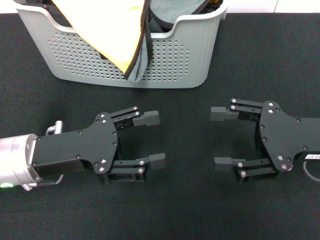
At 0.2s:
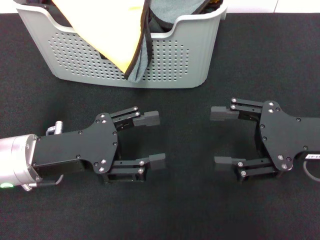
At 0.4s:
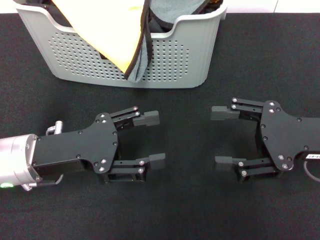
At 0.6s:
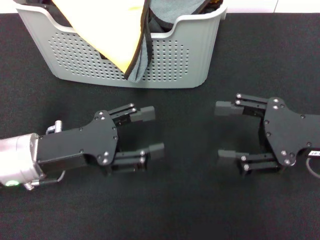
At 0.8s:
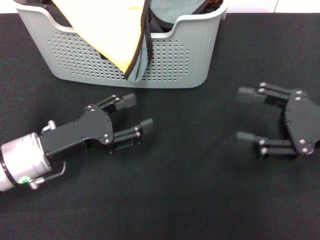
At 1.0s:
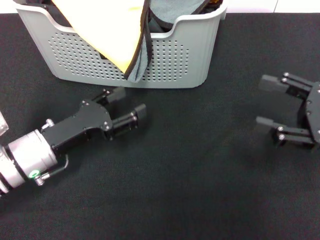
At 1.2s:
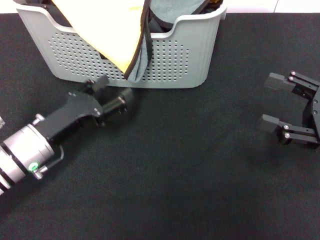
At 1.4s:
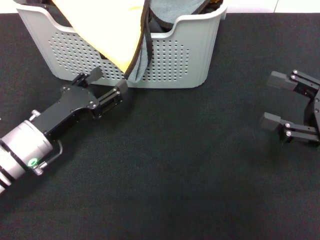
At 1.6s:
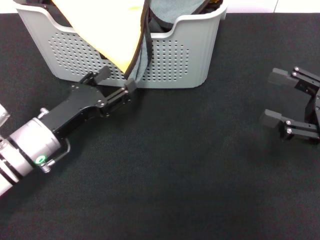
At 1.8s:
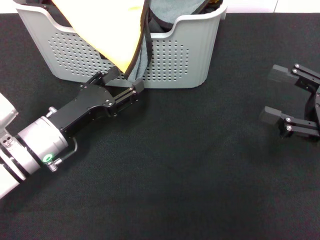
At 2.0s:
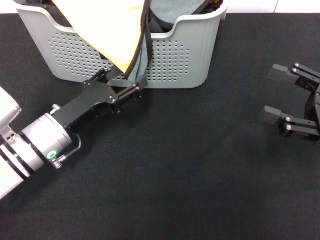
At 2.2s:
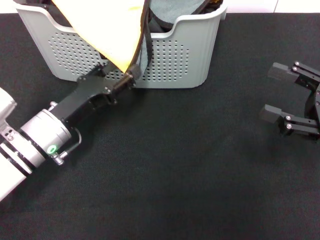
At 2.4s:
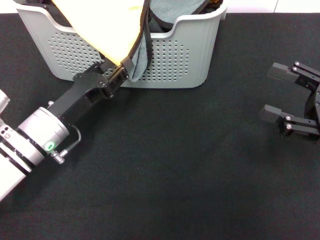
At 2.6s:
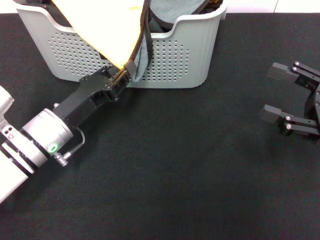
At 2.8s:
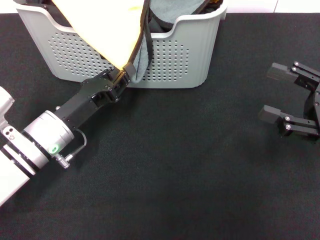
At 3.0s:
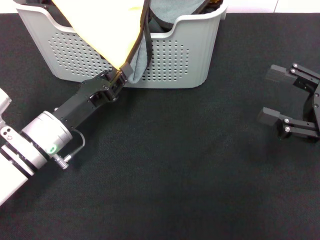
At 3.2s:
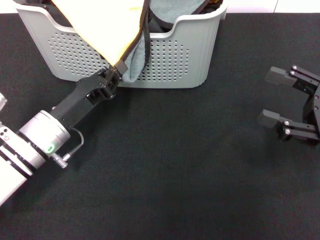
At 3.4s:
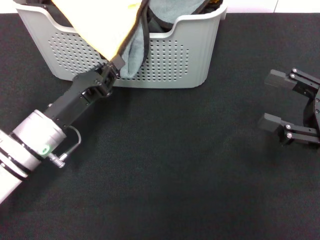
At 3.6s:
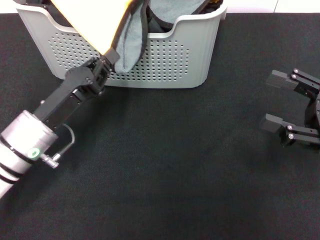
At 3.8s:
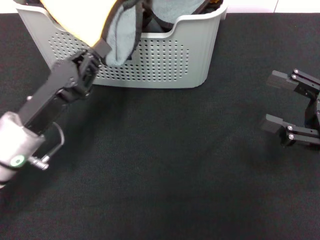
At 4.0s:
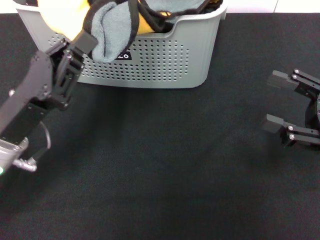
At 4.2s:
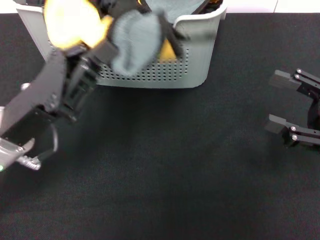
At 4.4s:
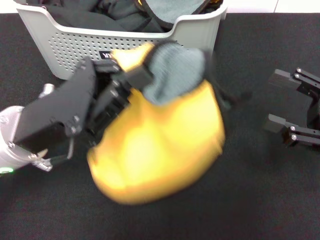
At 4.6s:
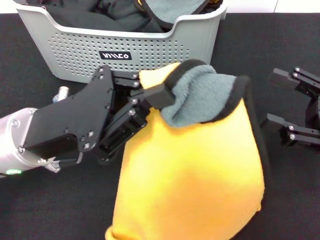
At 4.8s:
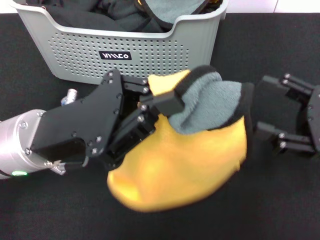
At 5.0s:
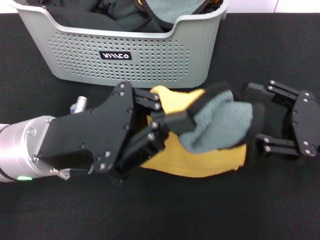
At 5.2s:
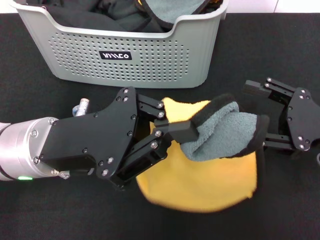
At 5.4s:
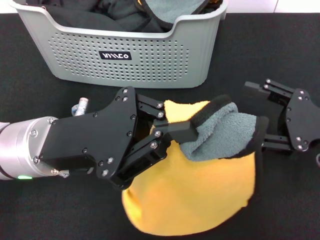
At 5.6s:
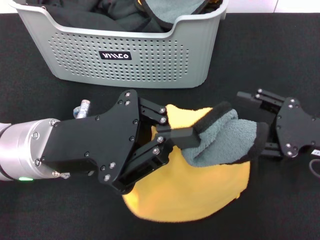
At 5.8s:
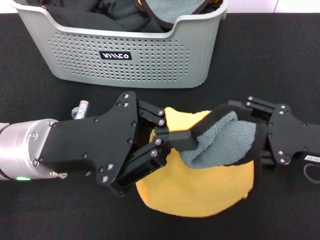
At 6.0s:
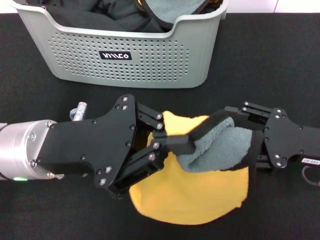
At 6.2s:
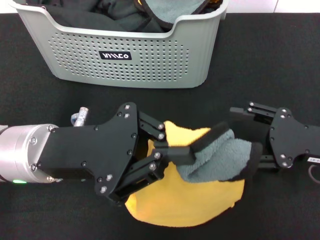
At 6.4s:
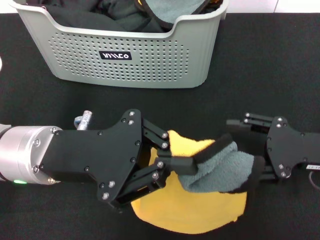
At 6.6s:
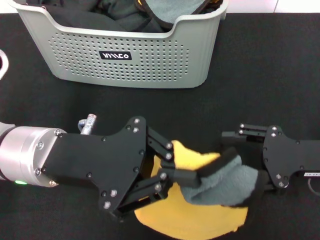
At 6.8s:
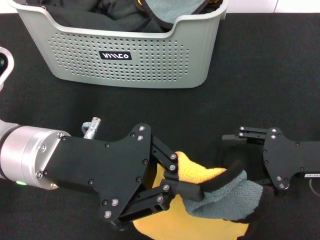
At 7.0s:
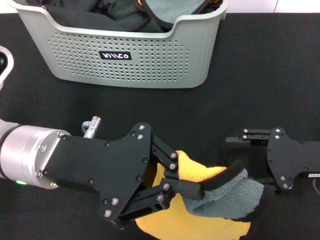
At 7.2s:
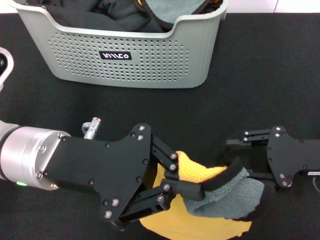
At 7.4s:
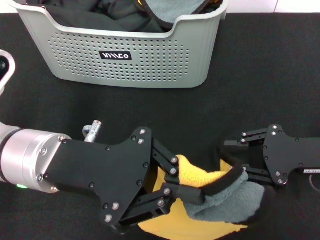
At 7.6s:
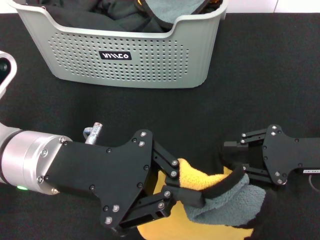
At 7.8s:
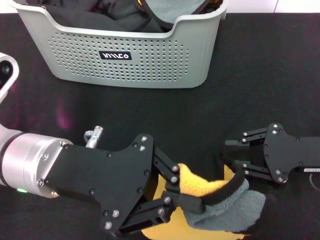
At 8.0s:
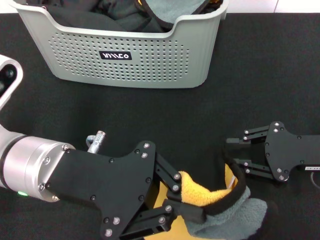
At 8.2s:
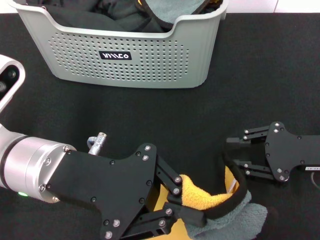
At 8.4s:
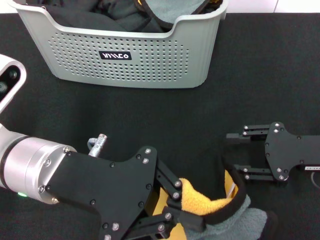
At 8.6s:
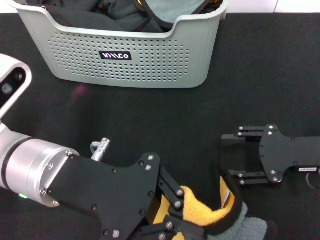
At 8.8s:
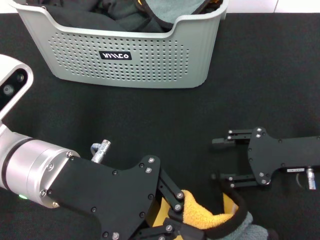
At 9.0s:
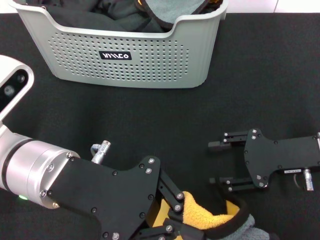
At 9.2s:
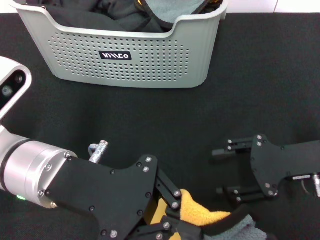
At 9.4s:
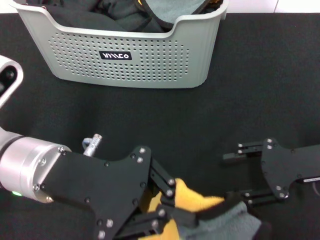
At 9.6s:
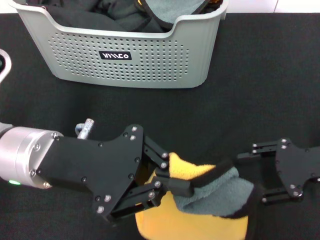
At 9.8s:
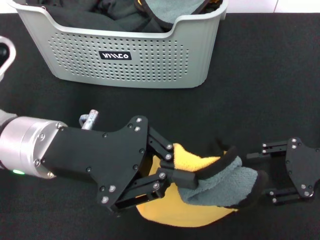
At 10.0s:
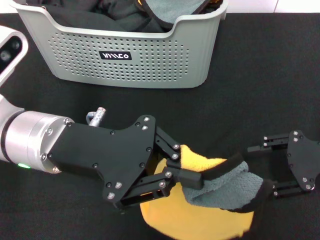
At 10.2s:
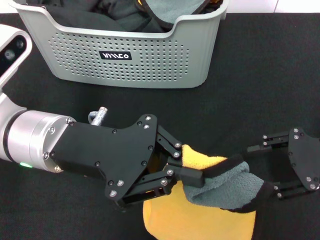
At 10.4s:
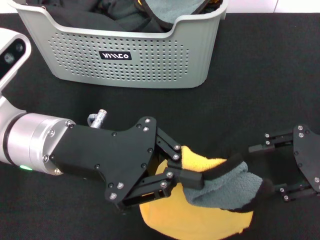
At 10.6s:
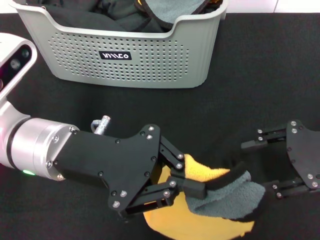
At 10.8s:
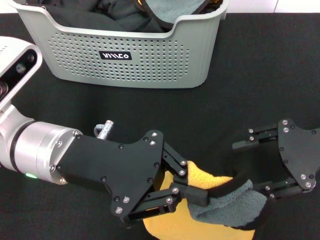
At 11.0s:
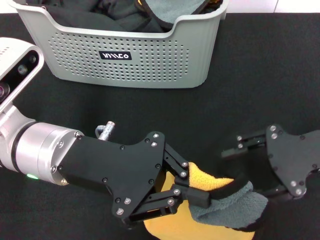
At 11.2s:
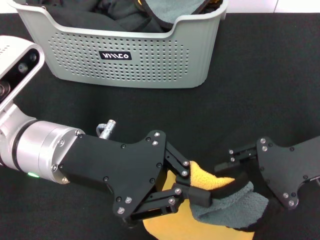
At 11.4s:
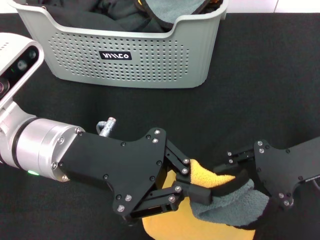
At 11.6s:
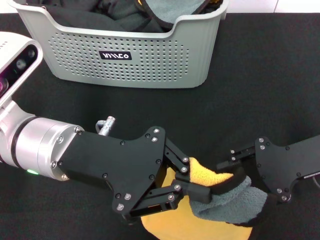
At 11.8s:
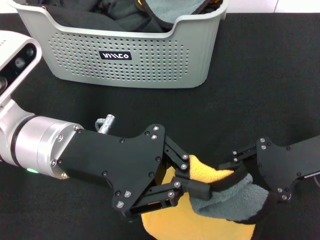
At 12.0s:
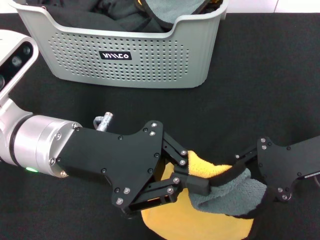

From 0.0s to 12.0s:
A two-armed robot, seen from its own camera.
Task of the whole recording: pick up the towel from the storage box and lay it flat on the black tablecloth.
Step, from 0.0s to 3.0s: Pick up a towel with the left gripper.
From 0.0s to 1.6s: The left gripper travels downward by some 5 cm, while the right gripper heads to the right, covering approximately 5 cm.
From 1.6s to 3.0s: The left gripper closes up.
From 3.0s to 4.4s: The left gripper goes approximately 10 cm upward.
From 6.0s to 7.6s: The right gripper closes its fingers.
From 9.0s to 10.4s: The right gripper goes about 5 cm upward.
From 10.4s to 12.0s: The grippers stay close to where they were, moving slightly.

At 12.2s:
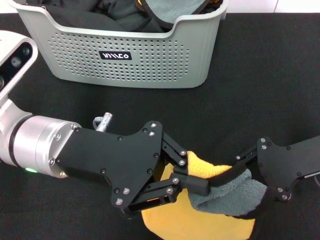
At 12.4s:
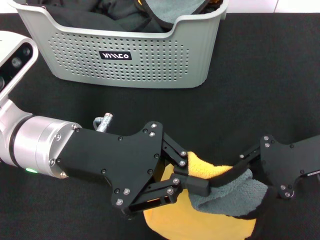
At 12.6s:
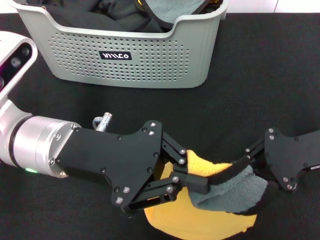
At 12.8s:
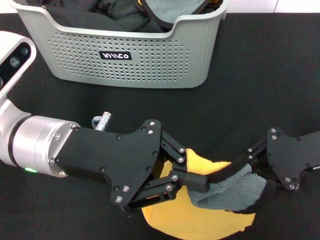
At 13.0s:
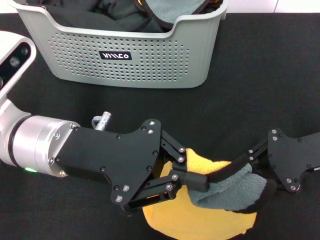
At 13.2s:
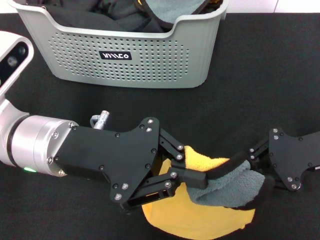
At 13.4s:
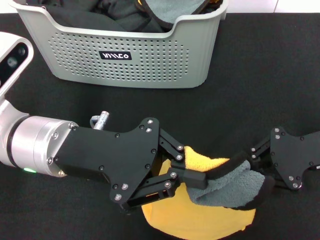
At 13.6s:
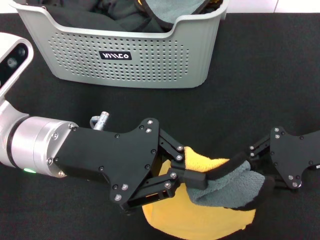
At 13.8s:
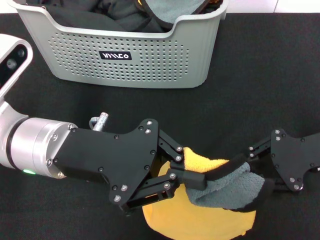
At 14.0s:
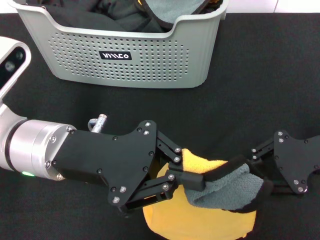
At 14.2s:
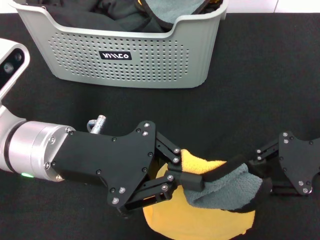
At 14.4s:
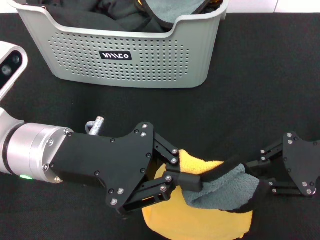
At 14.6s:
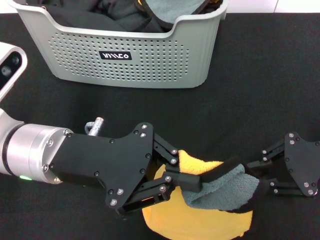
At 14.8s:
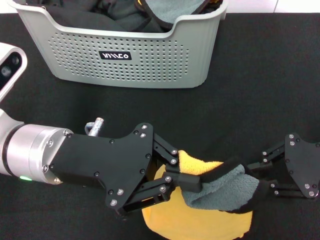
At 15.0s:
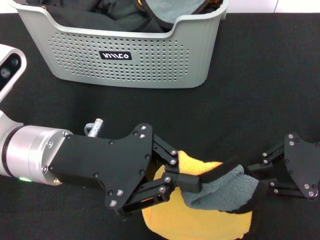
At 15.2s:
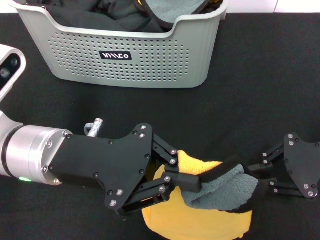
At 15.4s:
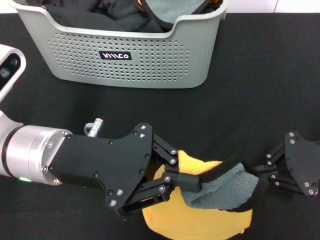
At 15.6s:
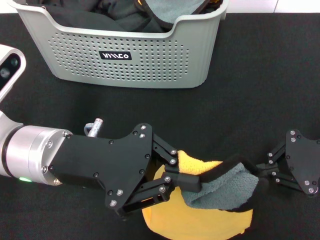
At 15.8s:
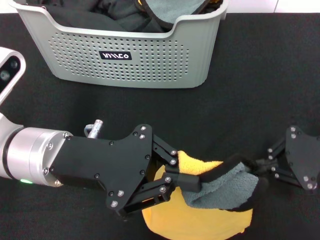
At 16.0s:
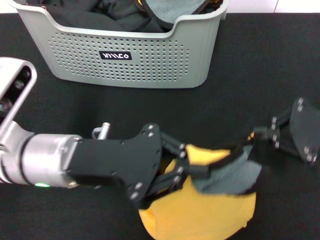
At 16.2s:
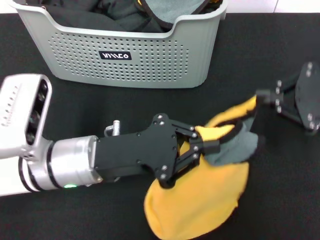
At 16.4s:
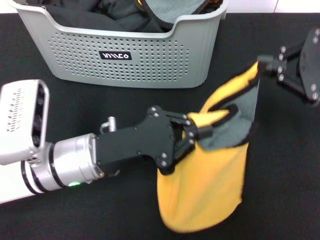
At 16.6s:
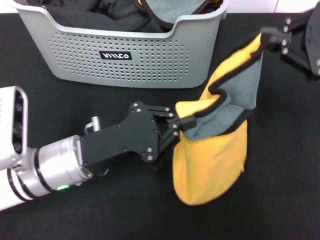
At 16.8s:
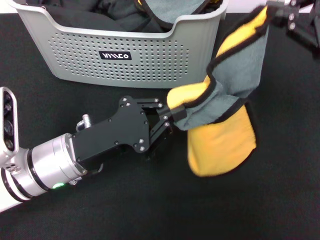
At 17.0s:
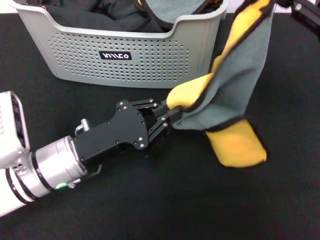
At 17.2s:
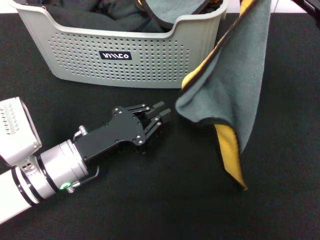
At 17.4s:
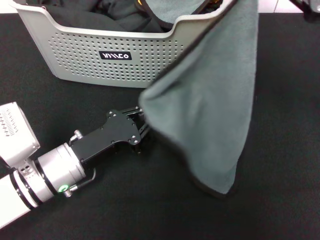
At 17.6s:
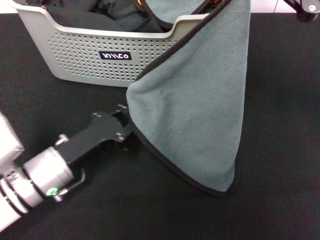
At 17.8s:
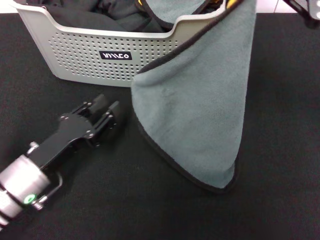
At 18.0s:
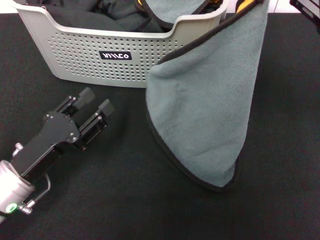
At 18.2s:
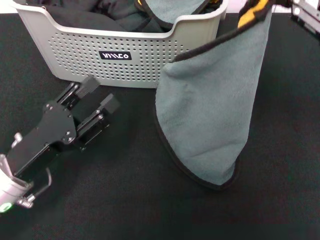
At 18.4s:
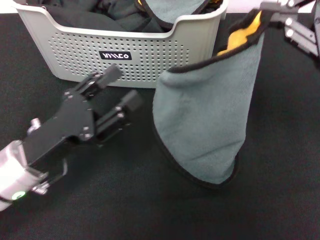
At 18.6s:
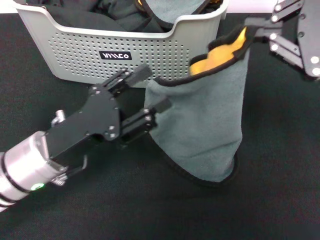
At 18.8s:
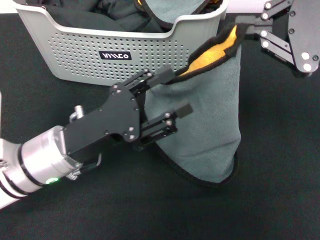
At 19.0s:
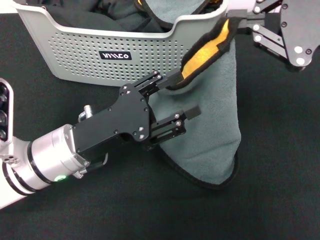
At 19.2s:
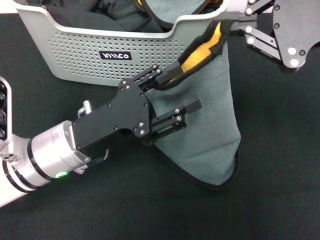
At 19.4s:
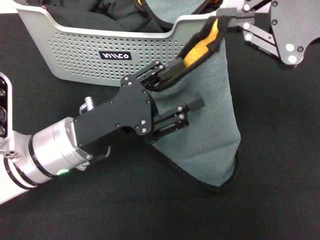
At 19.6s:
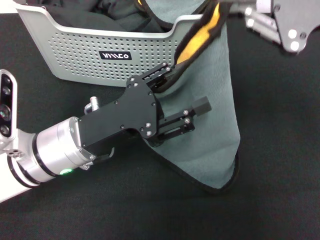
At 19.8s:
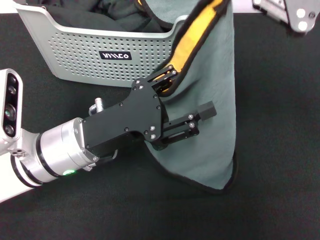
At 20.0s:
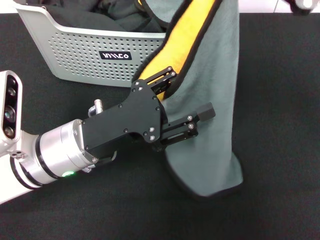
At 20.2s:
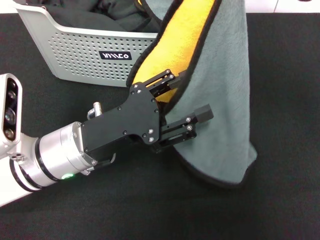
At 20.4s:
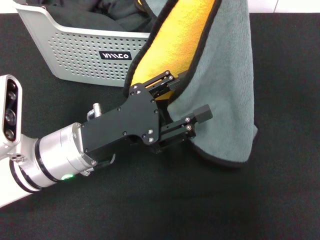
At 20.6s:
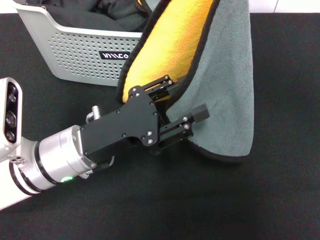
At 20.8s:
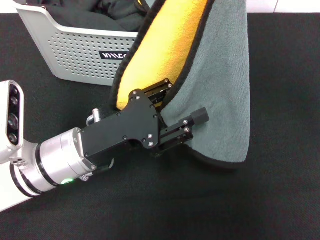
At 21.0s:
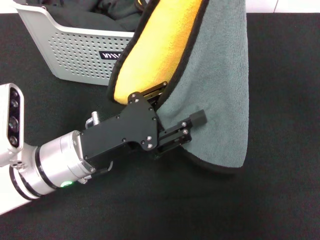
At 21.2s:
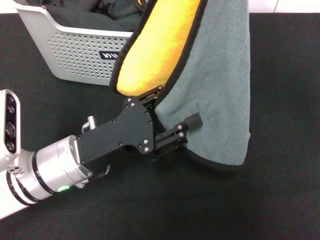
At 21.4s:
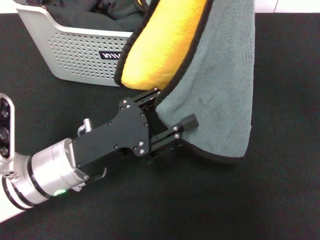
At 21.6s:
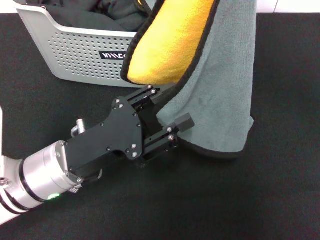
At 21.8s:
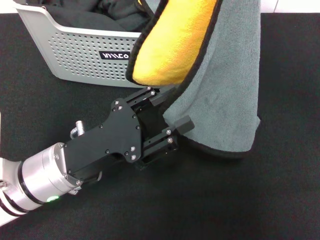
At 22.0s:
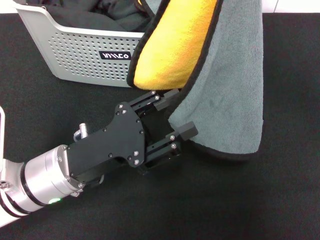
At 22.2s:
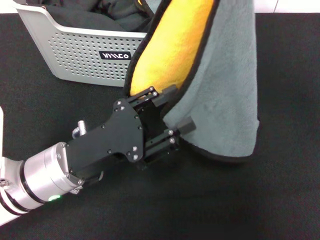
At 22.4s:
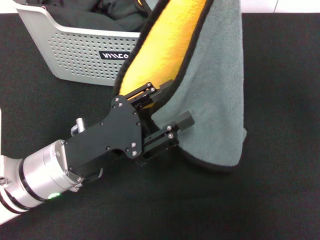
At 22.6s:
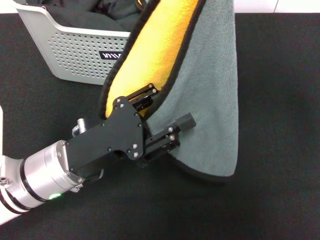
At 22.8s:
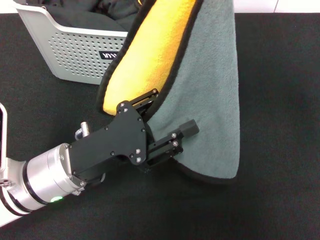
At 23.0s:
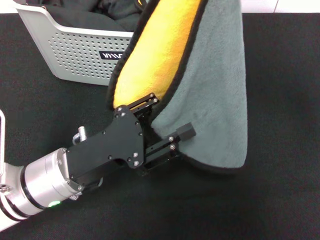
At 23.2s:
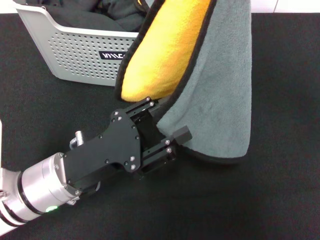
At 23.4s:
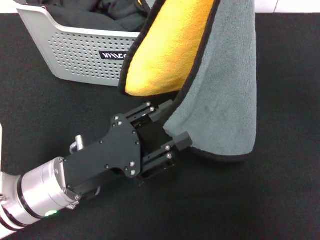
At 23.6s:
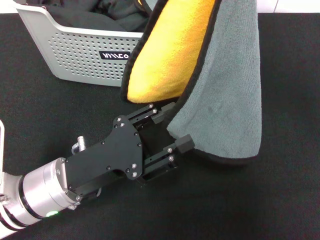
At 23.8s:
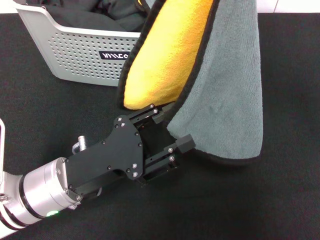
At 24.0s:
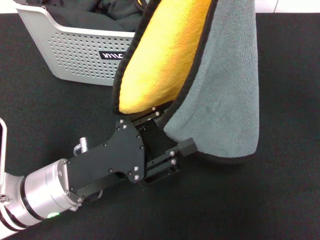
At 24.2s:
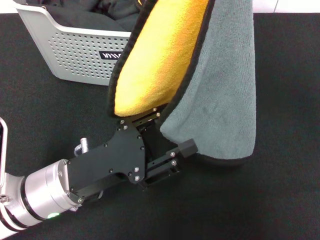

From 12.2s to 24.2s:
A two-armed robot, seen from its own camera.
Task of the whole recording: pick up the towel from the storage box and lay it flat on the black tablecloth.
Step, from 12.2s to 15.4s: Spread the towel flat with the left gripper.
From 12.2s to 15.2s: The grippers move only a little.
From 15.2s to 16.6s: The left gripper goes roughly 5 cm downward. The right gripper is displaced upward by roughly 10 cm.
From 16.6s to 18.2s: The right gripper shifts roughly 5 cm upward, while the left gripper is displaced to the left by about 5 cm, and opens its fingers.
From 18.2s to 19.8s: The left gripper goes about 10 cm to the right and forward.
From 21.2s to 22.6s: The grippers stay close to where they were, moving slightly.
